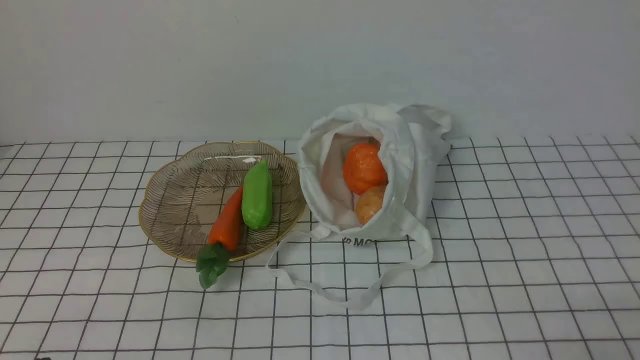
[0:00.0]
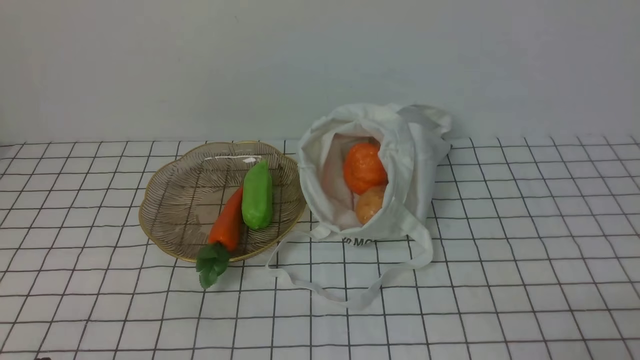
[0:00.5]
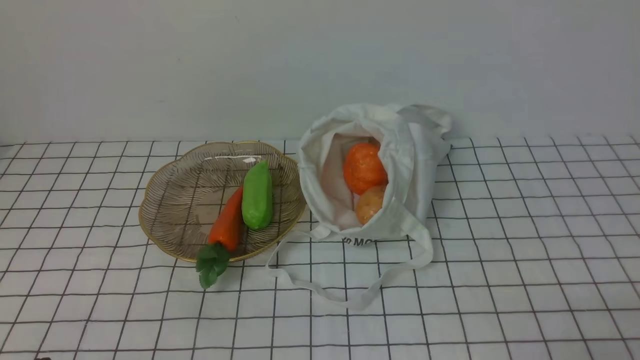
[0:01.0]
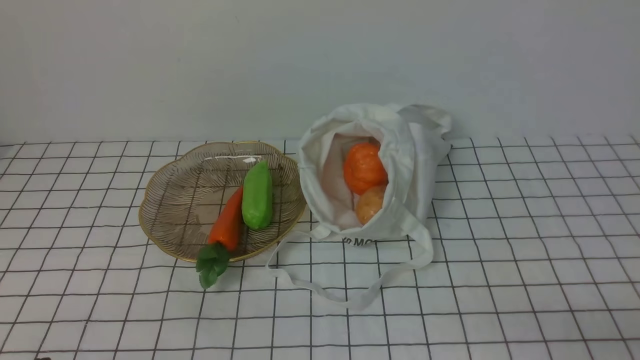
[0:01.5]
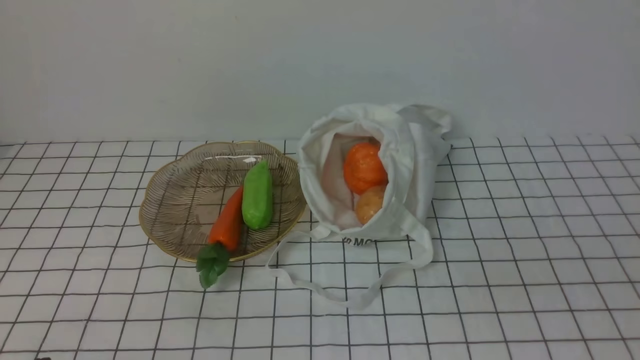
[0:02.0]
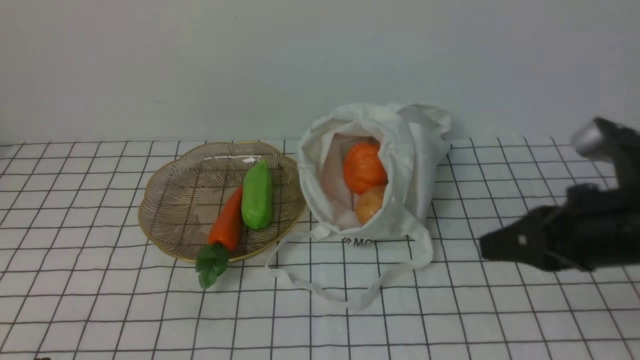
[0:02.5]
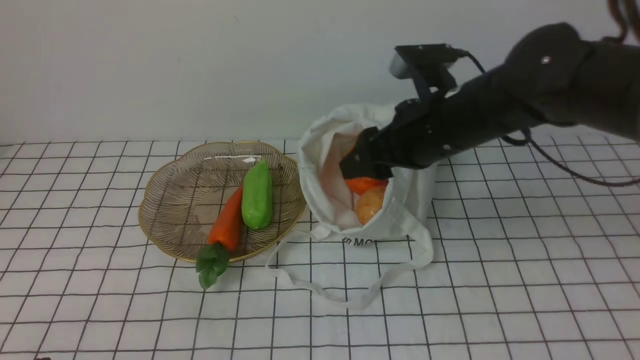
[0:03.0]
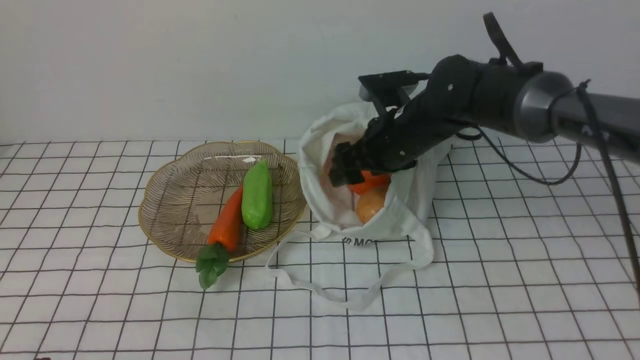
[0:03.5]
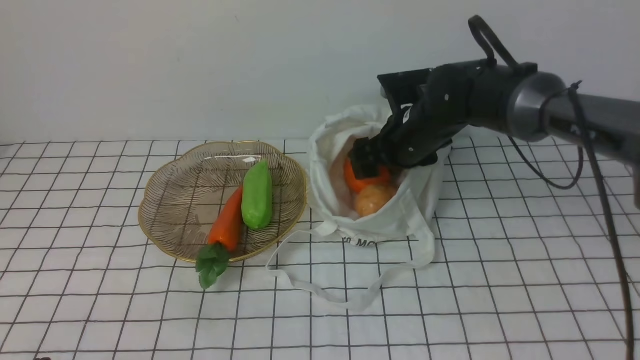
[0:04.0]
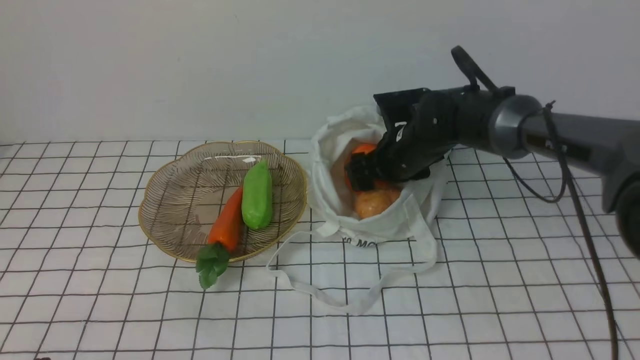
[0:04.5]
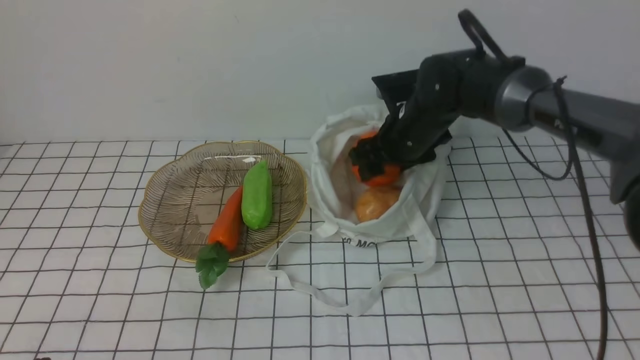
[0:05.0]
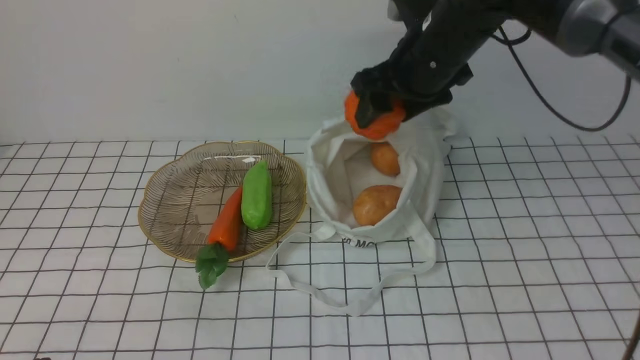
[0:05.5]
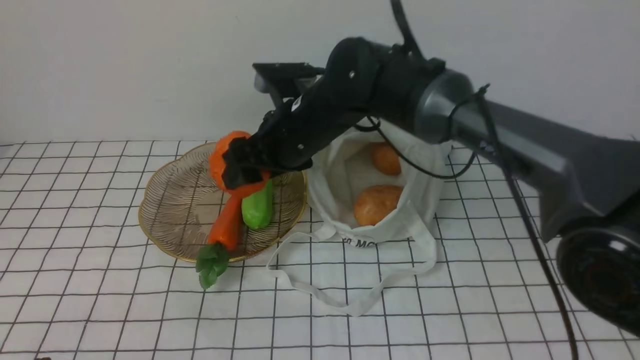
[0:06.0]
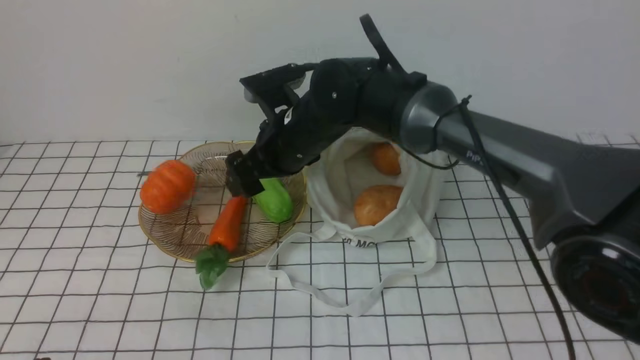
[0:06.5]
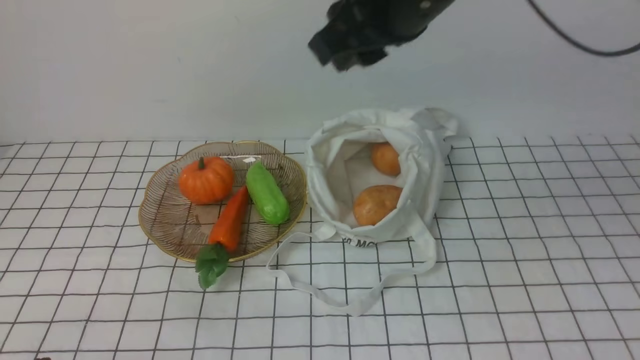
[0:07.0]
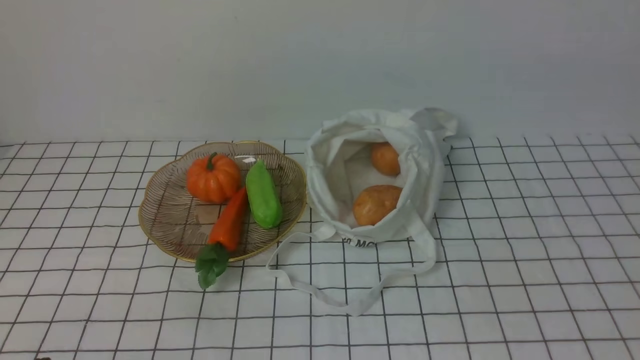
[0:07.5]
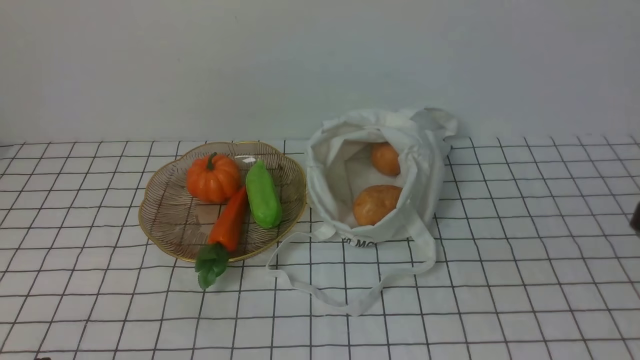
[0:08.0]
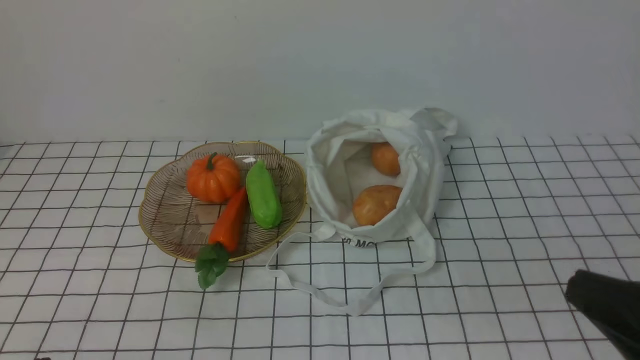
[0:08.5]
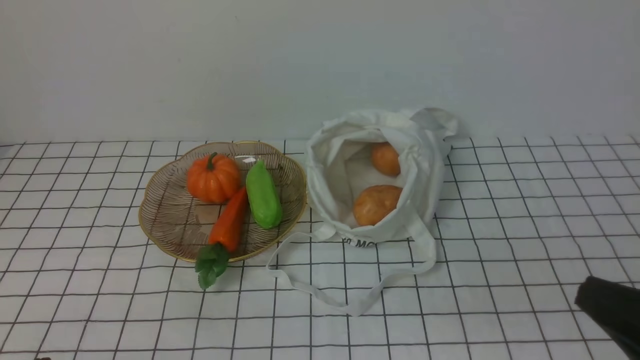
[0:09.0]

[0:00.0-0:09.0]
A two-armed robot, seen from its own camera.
Task of the whole recording: take vegetables from bag on white checkered tablecloth place on plate.
Step, 0:00.0 to 0:04.5: Grasp the pumpkin with right gripper.
Step, 0:05.0 to 0:06.5: Place the pumpkin on the plate with right gripper.
0:02.0 to 0:04.5: The right gripper travels forward and to the left by roughly 40 cm, and opens.
0:04.5 to 0:07.0: The right gripper moves up and down over roughly 30 cm, changing direction 2 times, and closes.
0:07.0 to 0:09.0: The right gripper travels backward, to the right and downward by approximately 35 cm.

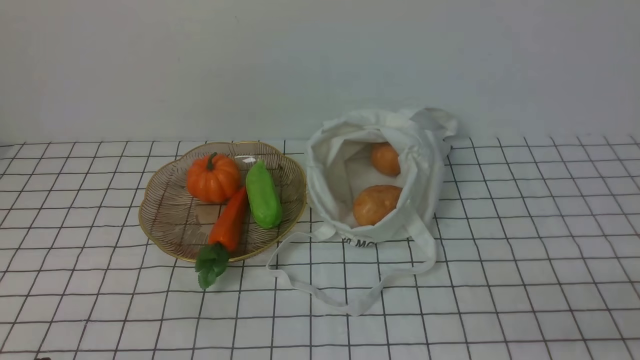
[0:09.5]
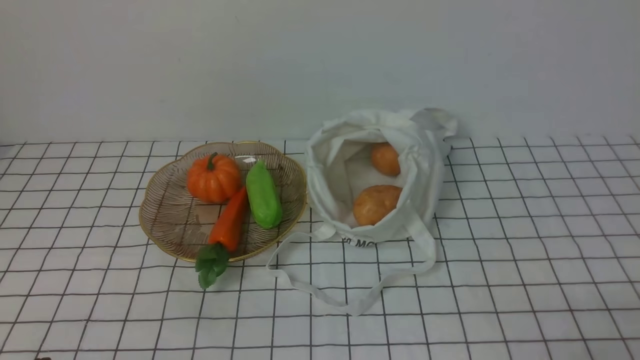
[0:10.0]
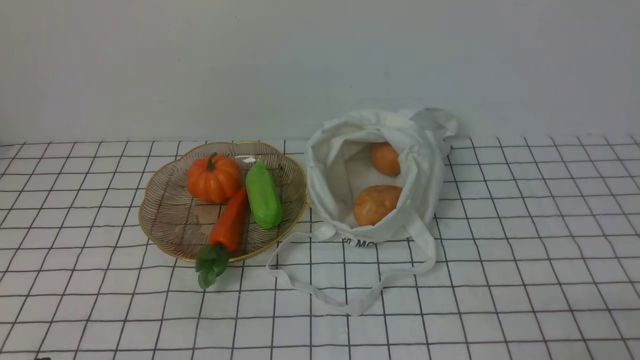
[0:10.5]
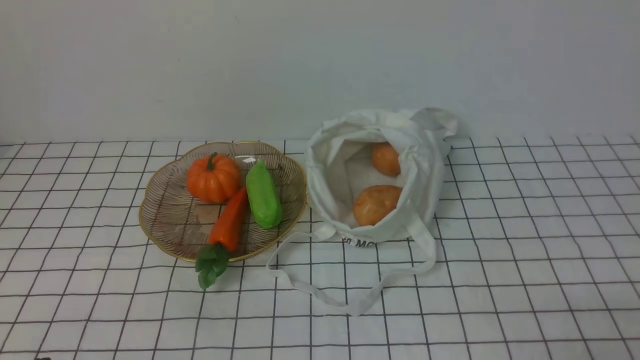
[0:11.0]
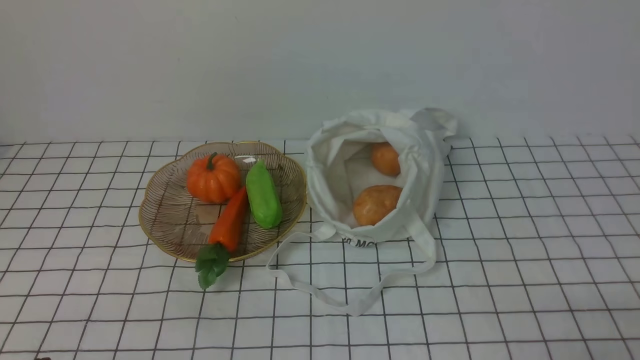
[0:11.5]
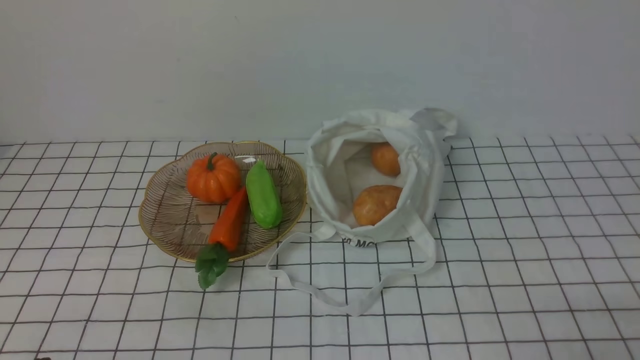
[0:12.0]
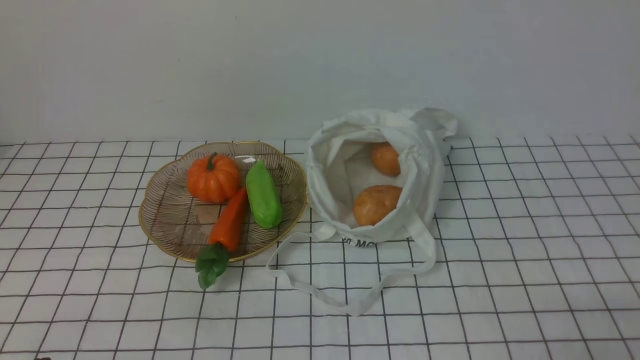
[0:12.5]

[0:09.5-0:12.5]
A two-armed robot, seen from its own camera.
Task of the whole recording: take vegetables from bag on white checkered tablecloth place on plate.
0:11.0 to 0:12.5: The two grippers keep their place.
